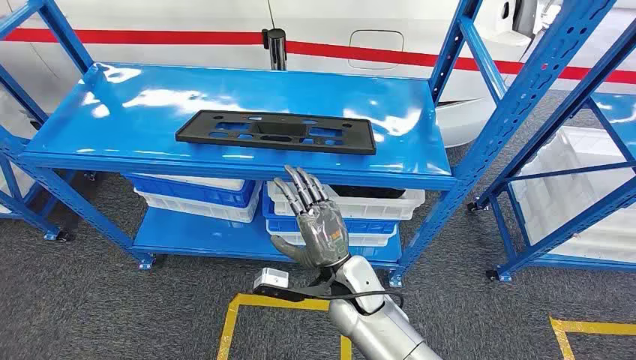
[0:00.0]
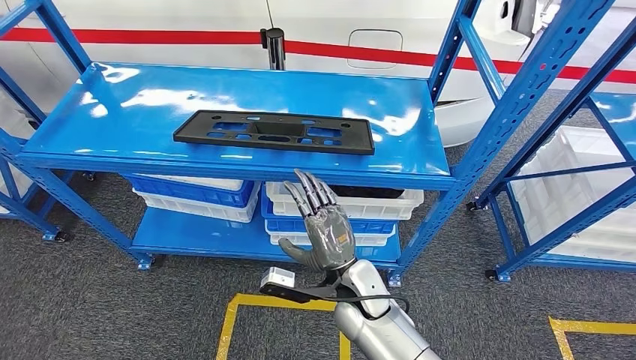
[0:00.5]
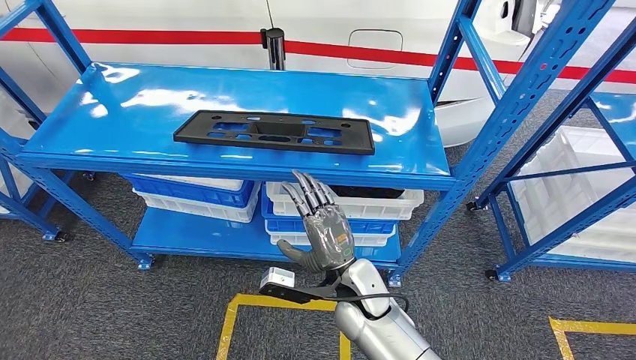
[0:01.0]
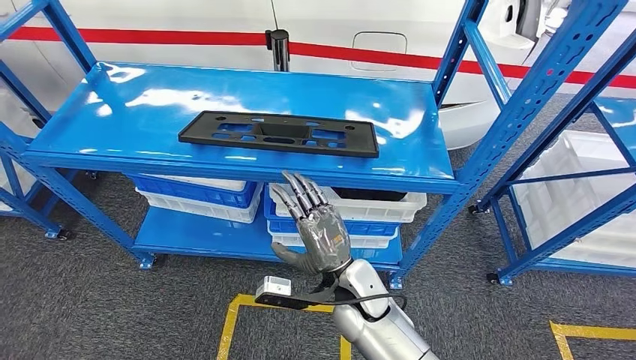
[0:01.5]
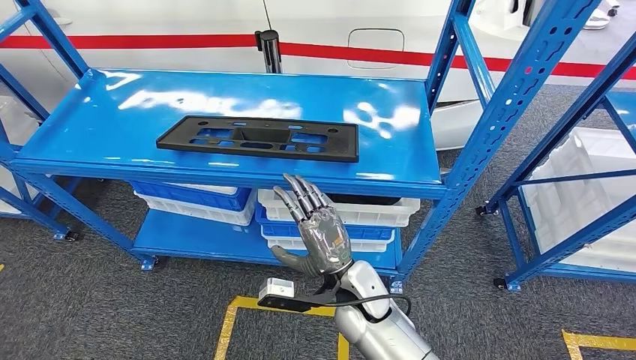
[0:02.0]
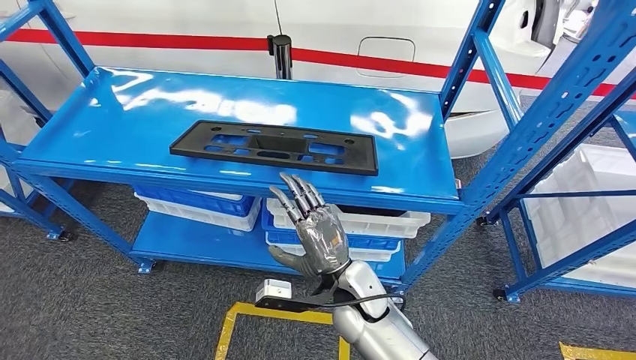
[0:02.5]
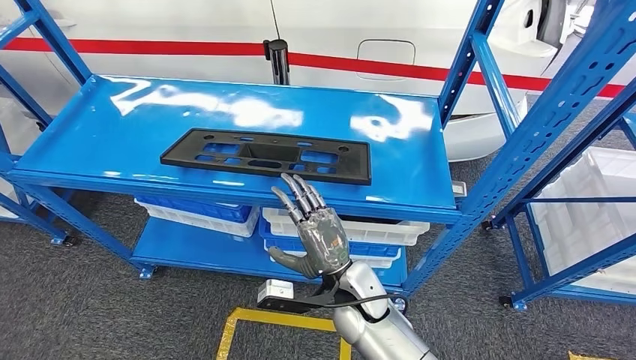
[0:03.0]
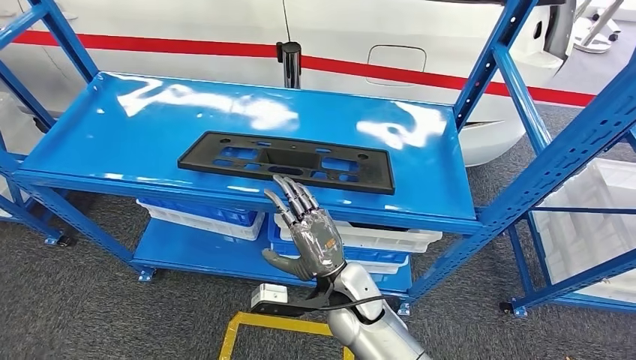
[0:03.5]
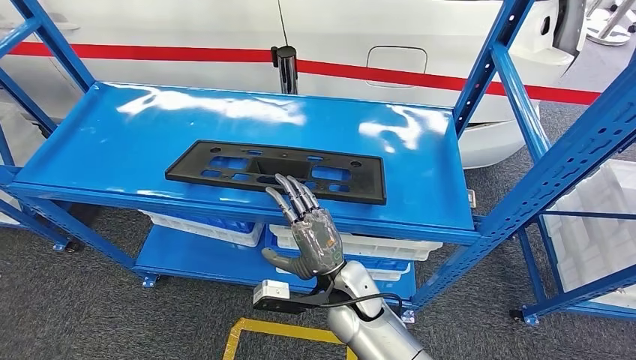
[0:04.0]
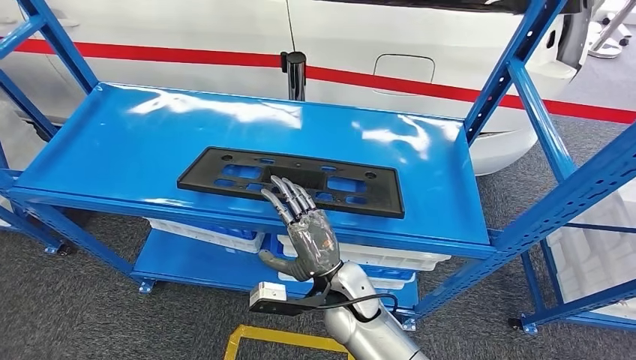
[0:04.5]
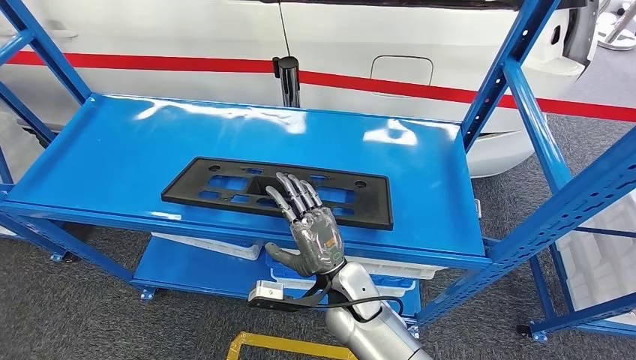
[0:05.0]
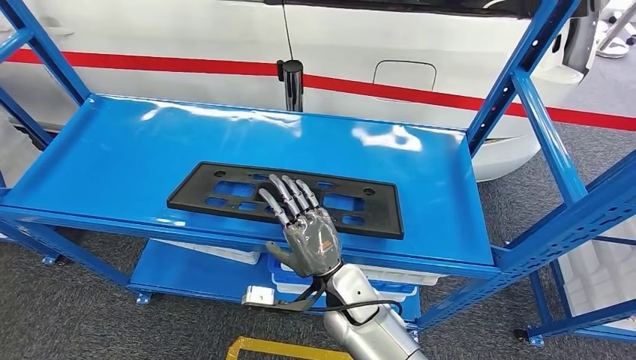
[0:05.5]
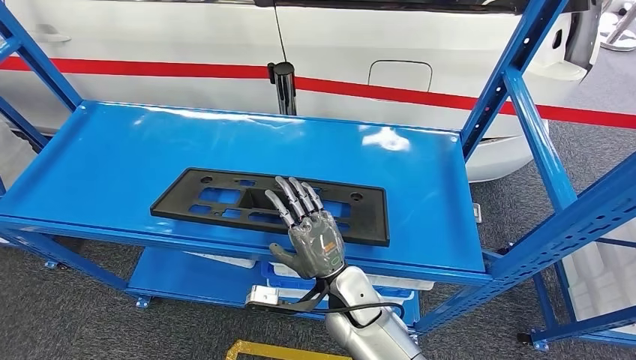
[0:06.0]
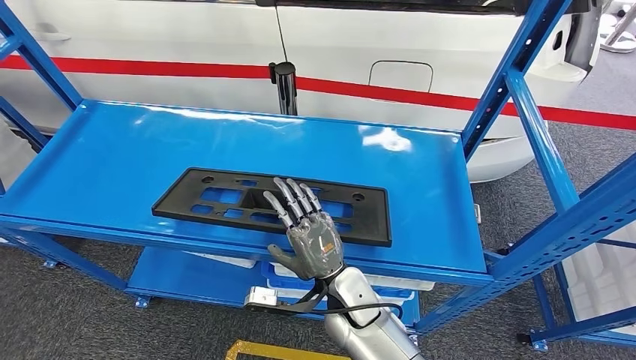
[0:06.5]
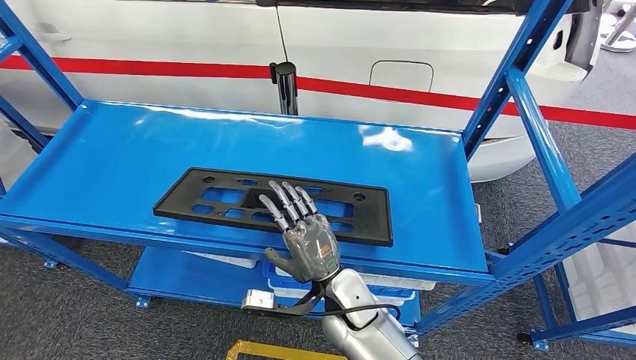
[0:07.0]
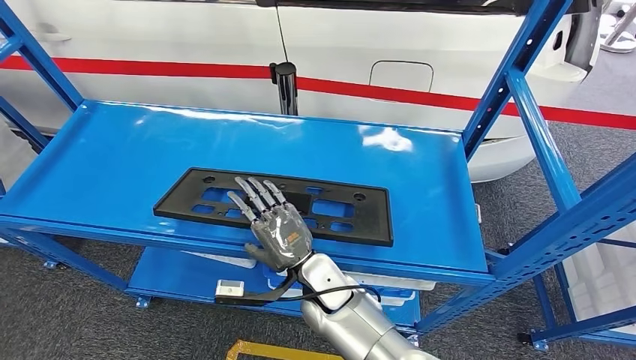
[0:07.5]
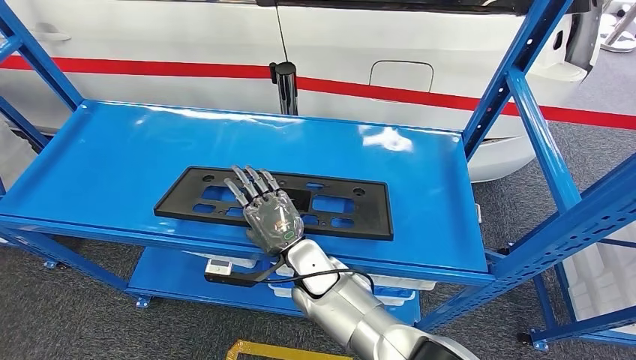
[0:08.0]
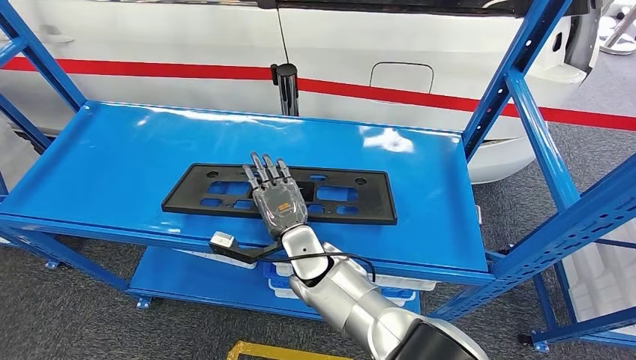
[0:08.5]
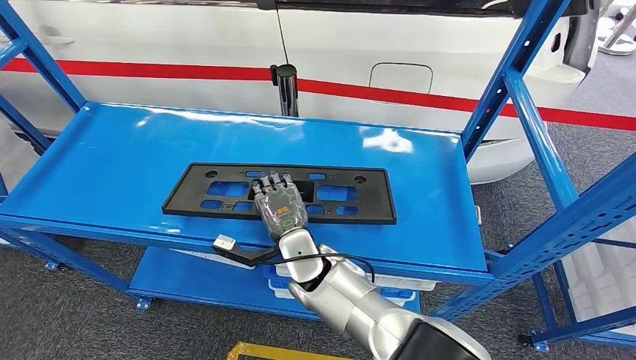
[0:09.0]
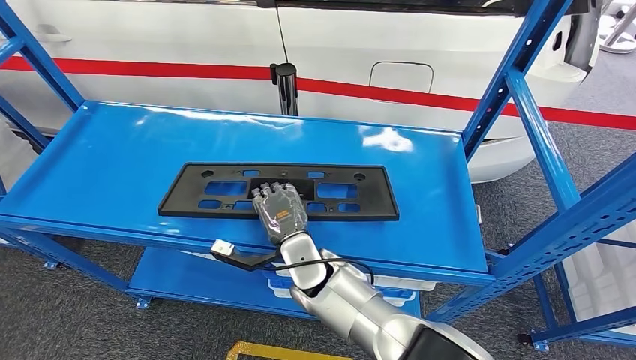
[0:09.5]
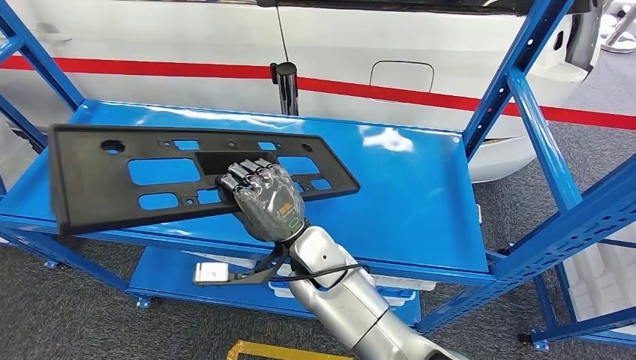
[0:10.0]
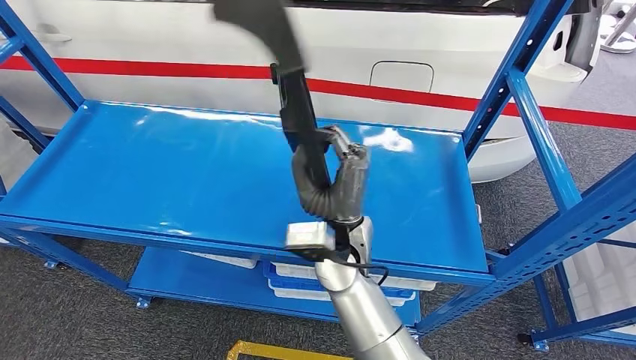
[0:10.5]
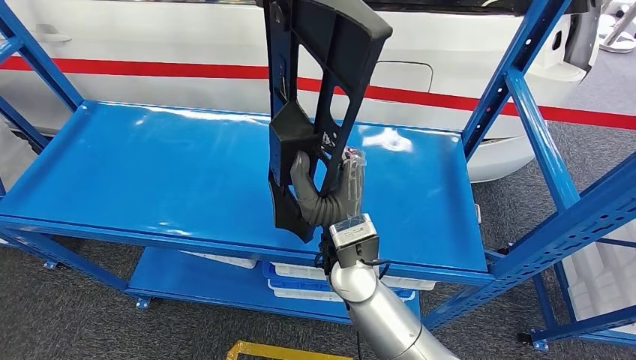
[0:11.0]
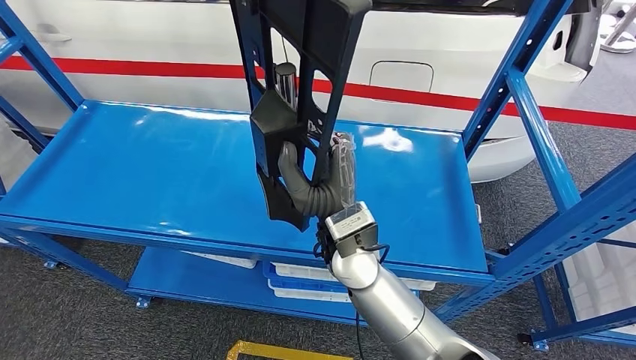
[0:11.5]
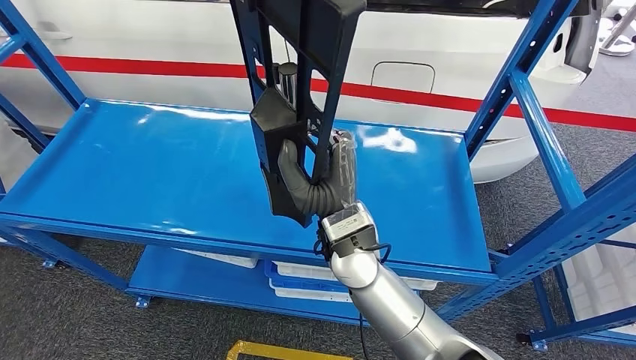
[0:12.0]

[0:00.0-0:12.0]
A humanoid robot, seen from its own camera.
0:06.0 to 0:08.0: The right hand heads to the left and forward, covering some 10 cm.
0:08.0 to 0:10.0: The right hand moves upward, some 5 cm.

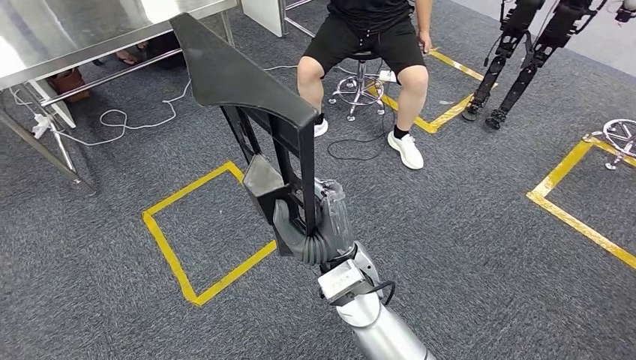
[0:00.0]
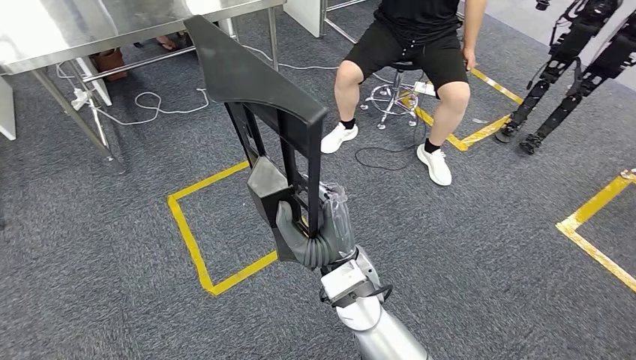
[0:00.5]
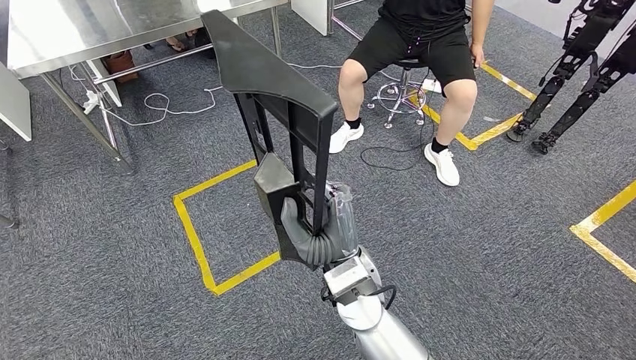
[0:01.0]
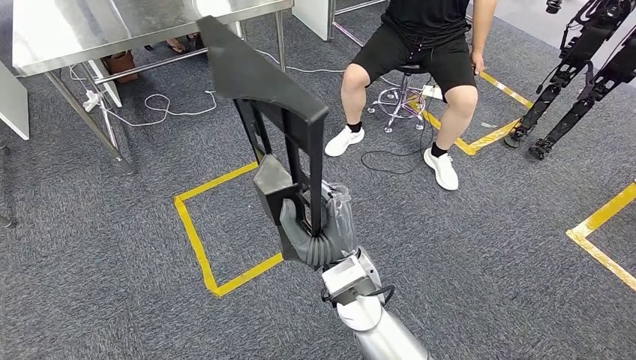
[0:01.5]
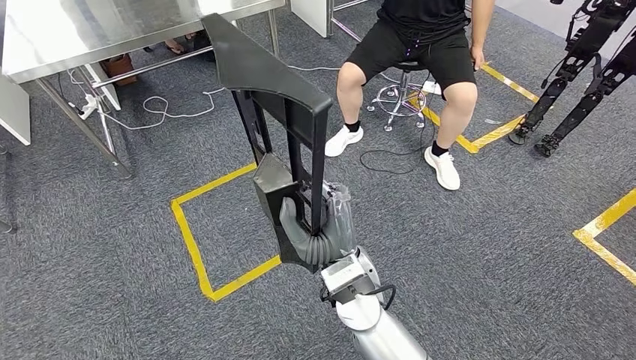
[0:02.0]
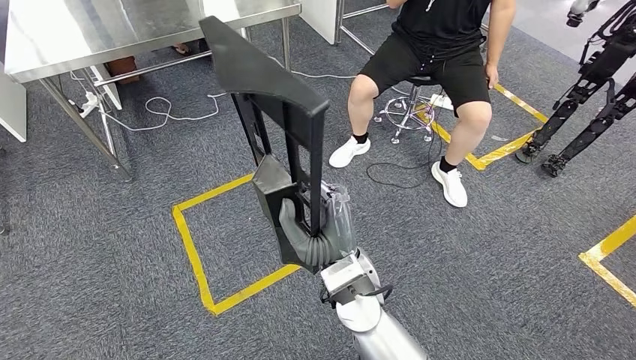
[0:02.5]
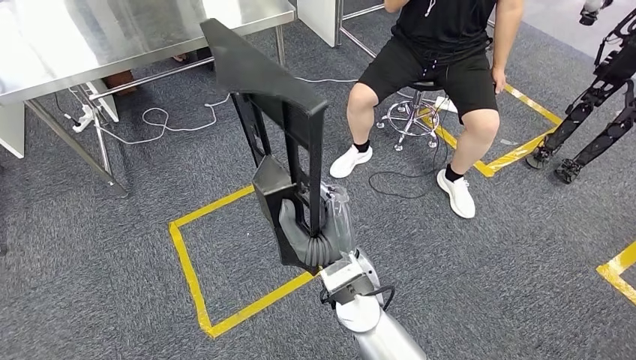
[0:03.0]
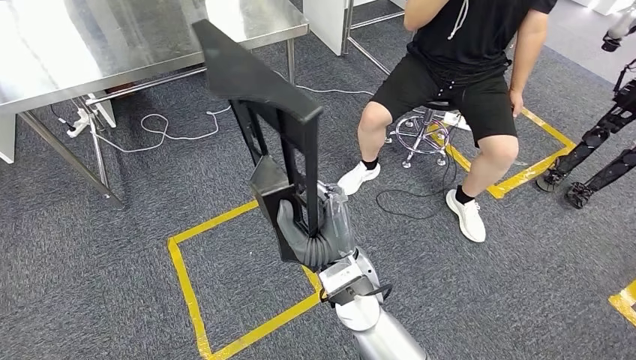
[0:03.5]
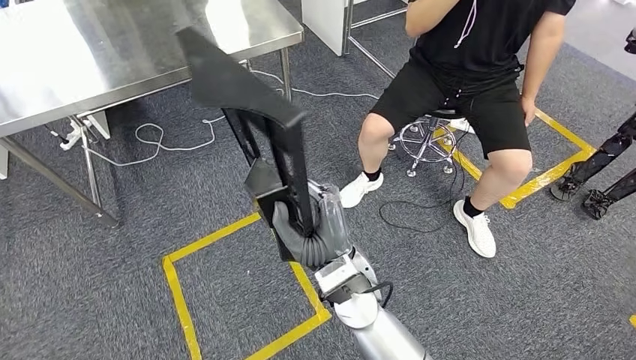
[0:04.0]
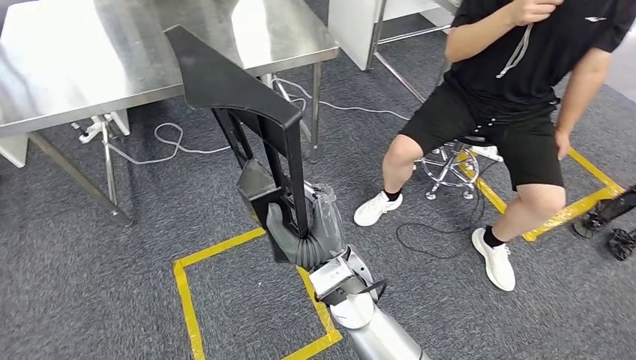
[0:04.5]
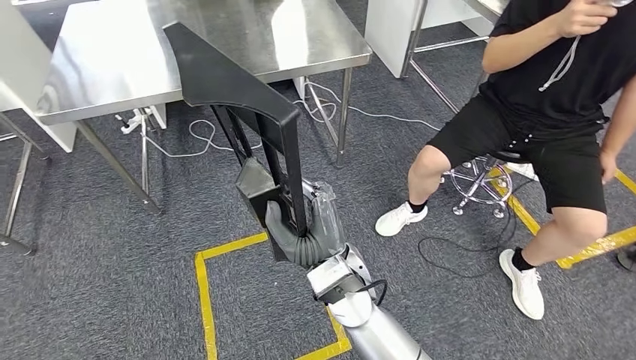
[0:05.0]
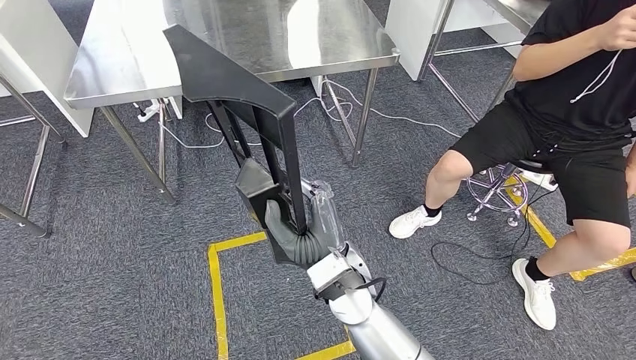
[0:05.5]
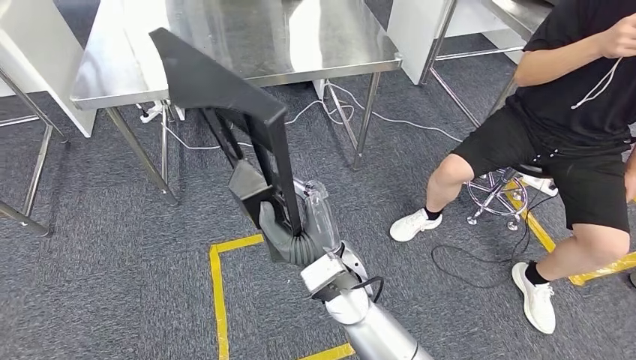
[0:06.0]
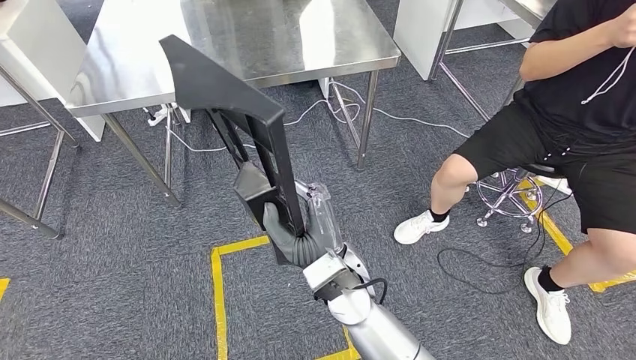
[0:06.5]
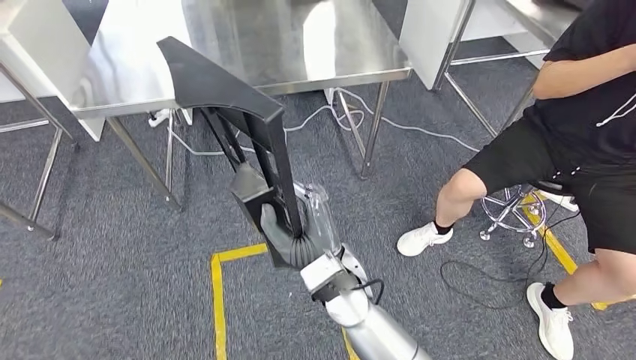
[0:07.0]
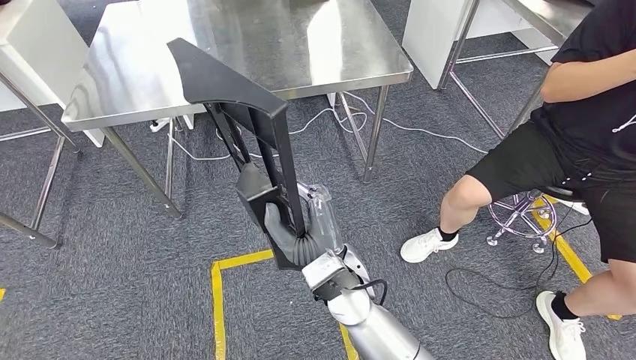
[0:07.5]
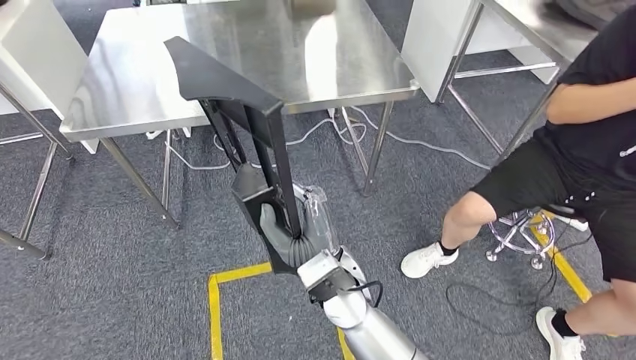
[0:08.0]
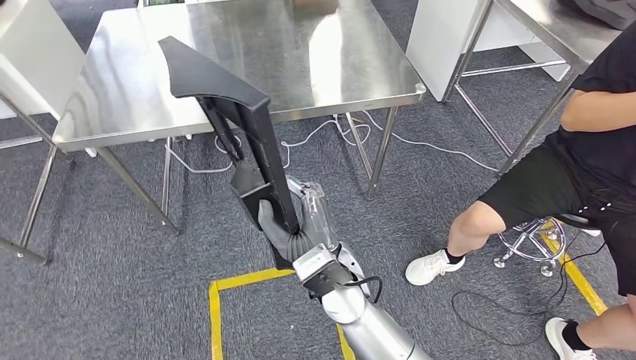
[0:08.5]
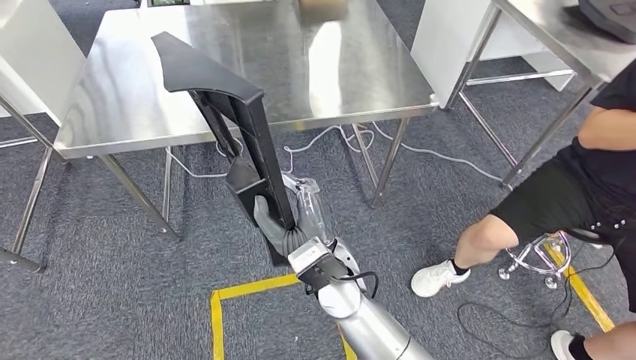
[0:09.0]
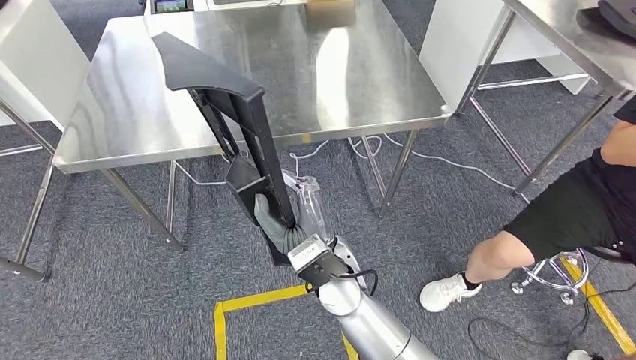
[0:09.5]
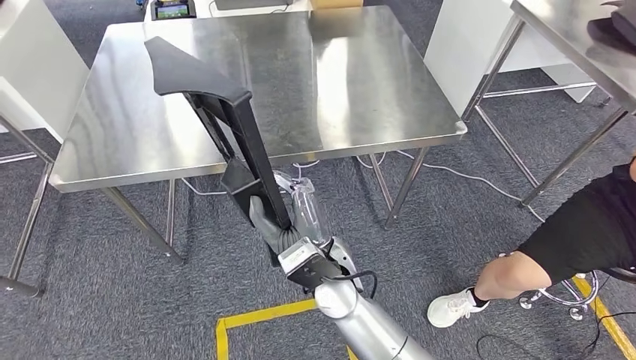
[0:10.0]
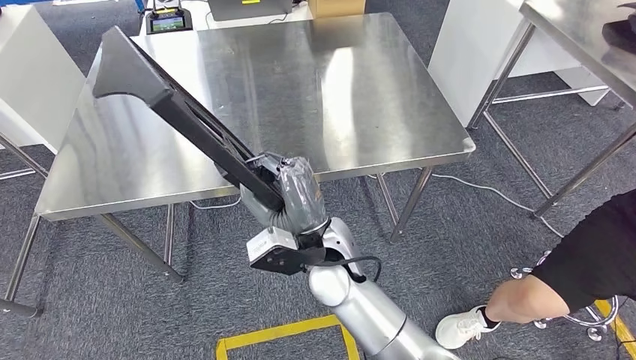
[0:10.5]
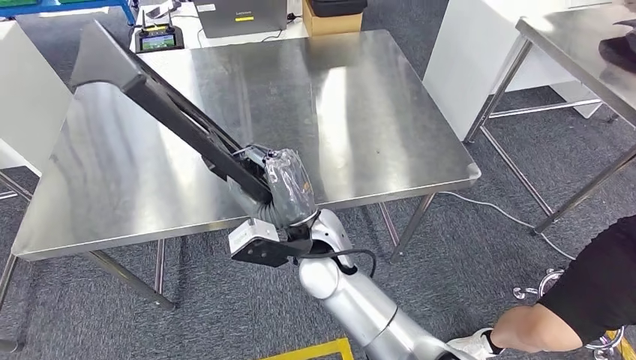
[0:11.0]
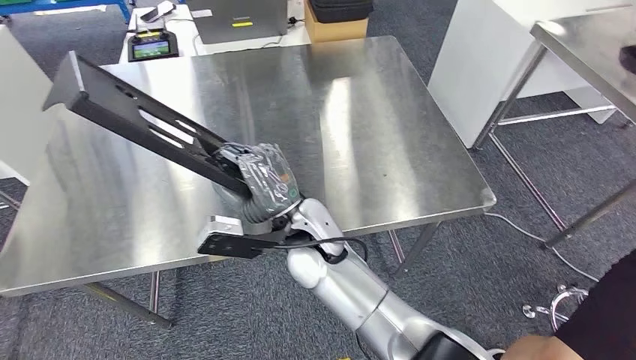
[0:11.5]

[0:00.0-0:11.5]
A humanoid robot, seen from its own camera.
Step, 0:00.0 to 0:09.5: Move the large material to the workbench.
